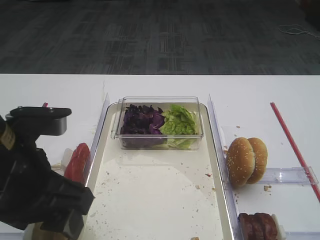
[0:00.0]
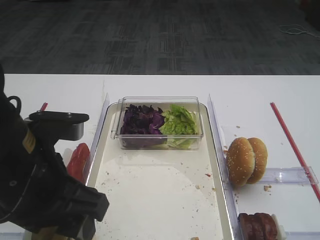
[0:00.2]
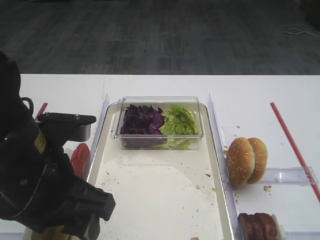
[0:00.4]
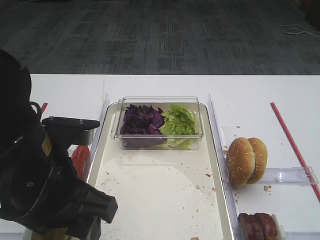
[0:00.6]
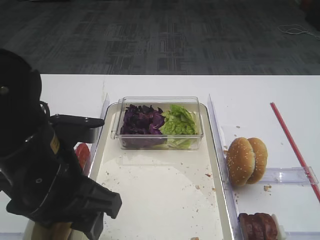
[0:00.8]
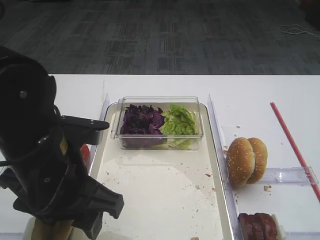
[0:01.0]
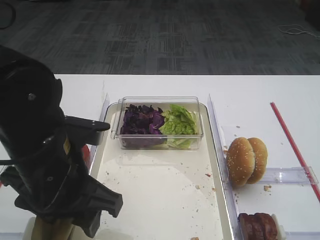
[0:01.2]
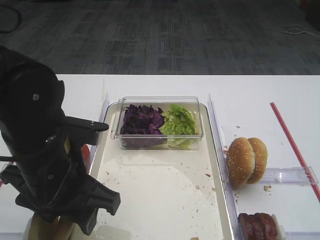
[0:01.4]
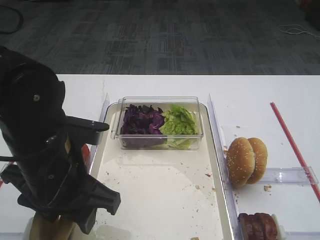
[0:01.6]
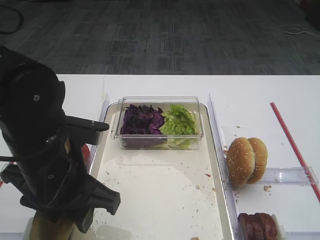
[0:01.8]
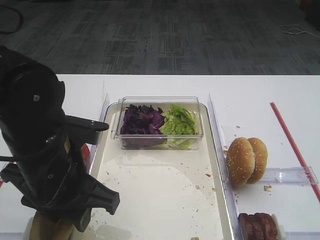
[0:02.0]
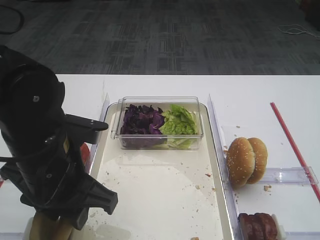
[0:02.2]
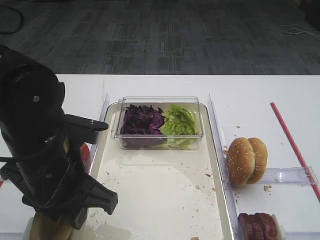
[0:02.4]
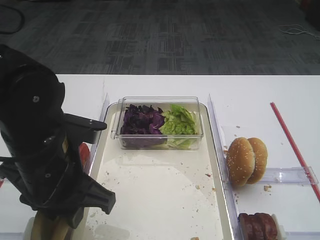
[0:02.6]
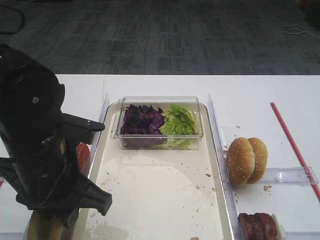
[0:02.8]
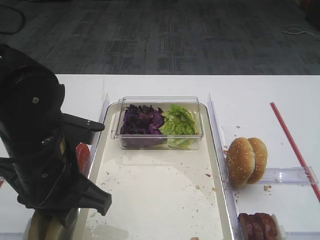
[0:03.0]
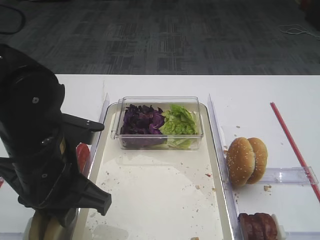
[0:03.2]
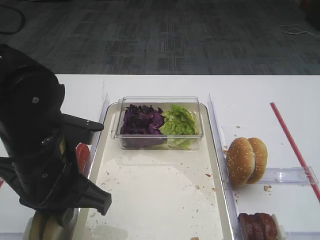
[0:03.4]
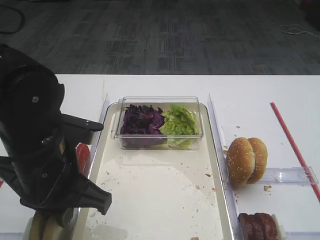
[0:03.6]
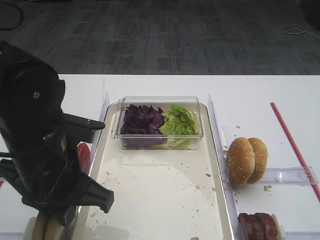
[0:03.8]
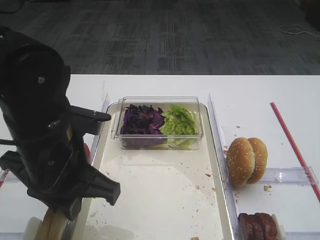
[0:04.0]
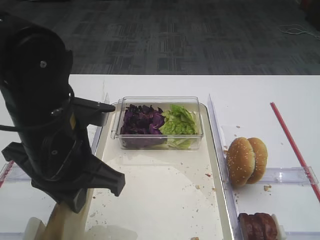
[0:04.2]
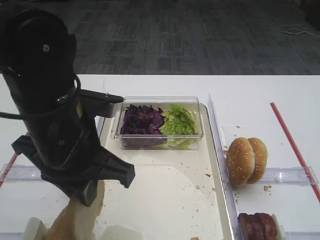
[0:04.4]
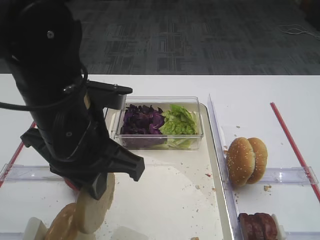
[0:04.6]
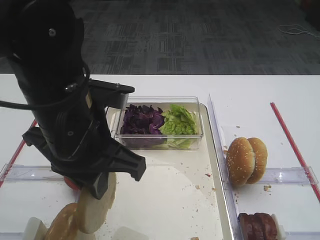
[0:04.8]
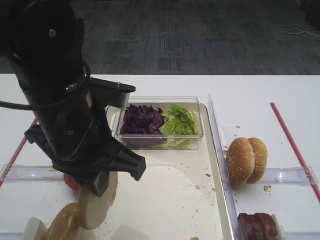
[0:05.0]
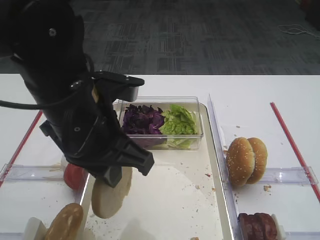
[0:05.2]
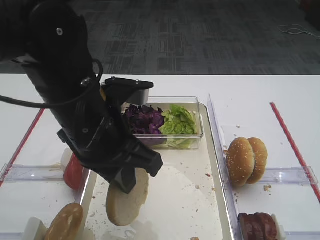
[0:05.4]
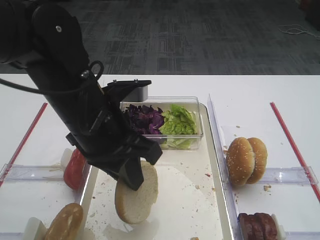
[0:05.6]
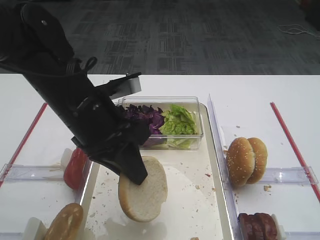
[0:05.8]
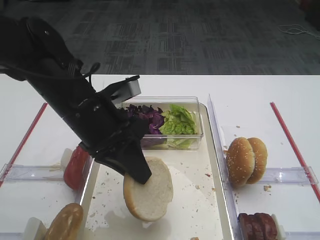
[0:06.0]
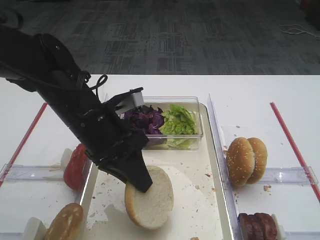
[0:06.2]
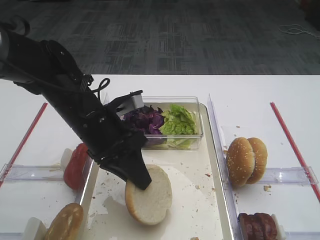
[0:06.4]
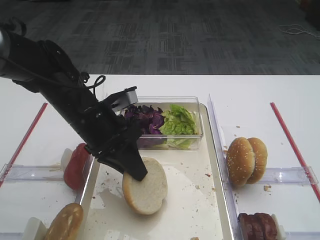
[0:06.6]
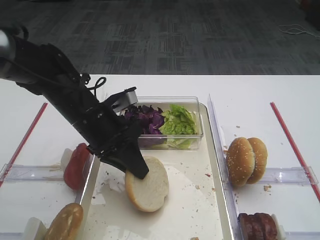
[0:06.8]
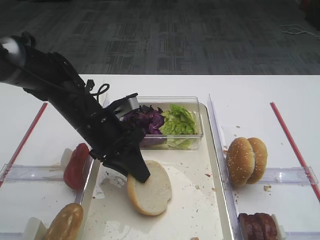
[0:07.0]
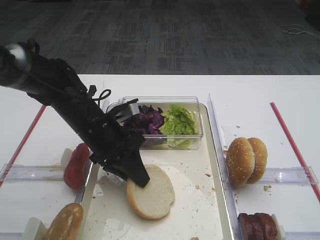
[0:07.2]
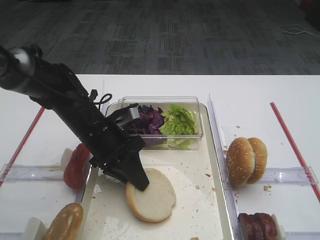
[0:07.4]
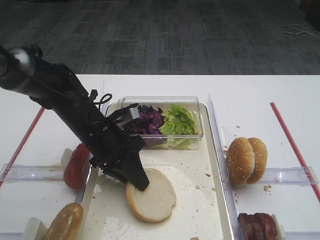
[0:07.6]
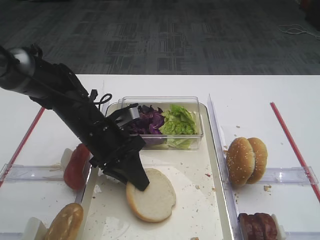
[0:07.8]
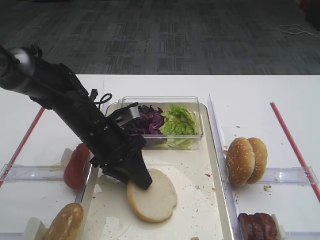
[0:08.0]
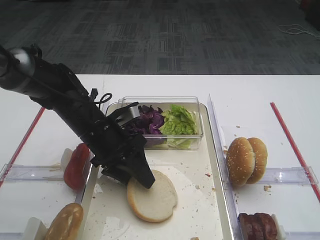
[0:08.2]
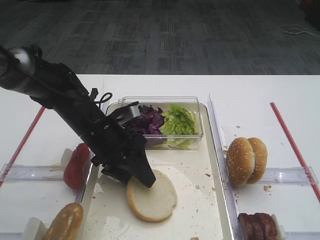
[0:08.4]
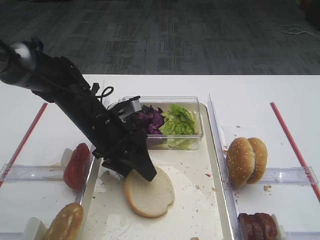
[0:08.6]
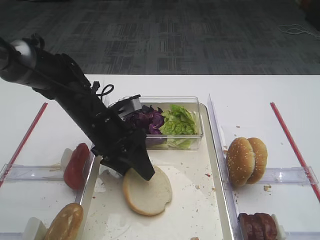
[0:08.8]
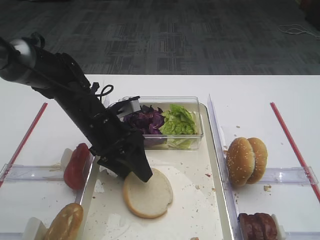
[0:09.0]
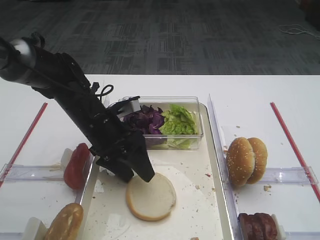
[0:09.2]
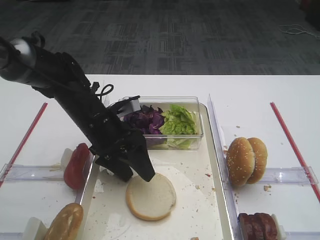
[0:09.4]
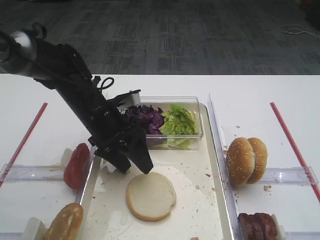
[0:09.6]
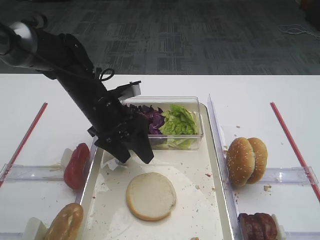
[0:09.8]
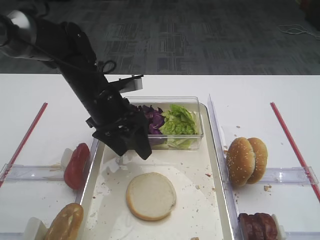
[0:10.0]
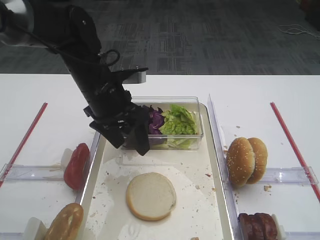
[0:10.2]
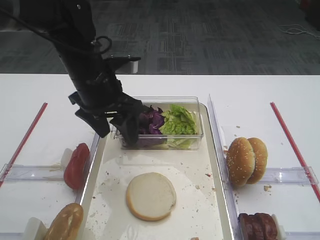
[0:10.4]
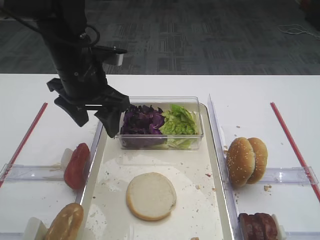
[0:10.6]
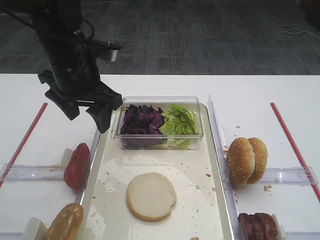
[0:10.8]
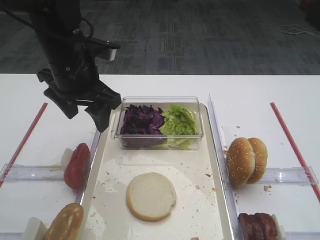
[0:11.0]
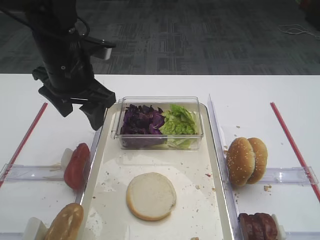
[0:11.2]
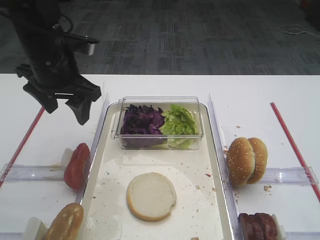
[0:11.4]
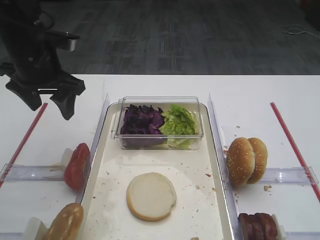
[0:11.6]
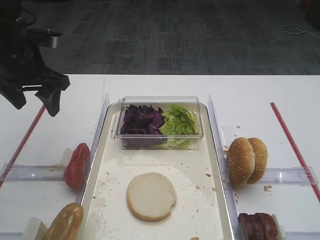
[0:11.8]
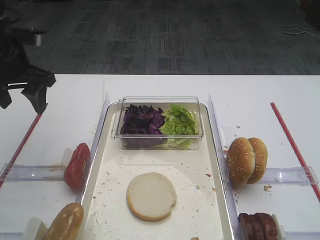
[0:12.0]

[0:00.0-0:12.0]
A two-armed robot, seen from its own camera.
Step, 0:00.0 to 0:04.6: Pick up the bread slice with the left gripper.
Step, 0:04.8 to 0:09.8: Place the bread slice on the tray with the left gripper.
0:00.0 to 0:01.6: The left gripper shifts by approximately 5 cm.
0:01.6 to 0:03.0: The left gripper closes.
0:03.0 to 0:04.4: The grippers stay close to where they were, moving slightly.
0:04.4 to 0:06.0: The left gripper moves forward, about 5 cm.
0:06.0 to 0:07.6: The left gripper heads downward and forward, covering some 10 cm.
0:07.6 to 0:09.0: The left gripper opens up.
0:09.0 to 0:10.4: The left gripper goes roughly 10 cm upward.
0:10.4 to 0:12.0: The left gripper is displaced to the left by some 15 cm.

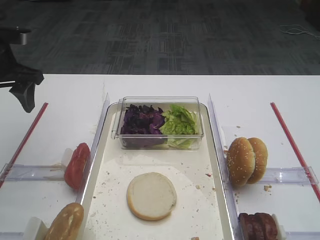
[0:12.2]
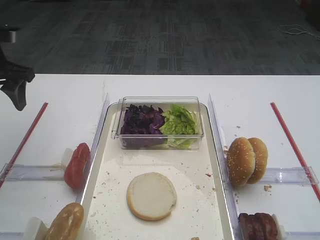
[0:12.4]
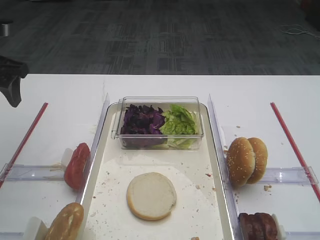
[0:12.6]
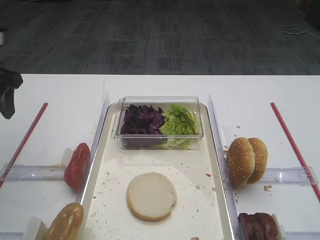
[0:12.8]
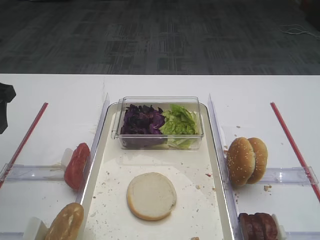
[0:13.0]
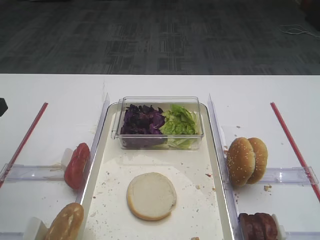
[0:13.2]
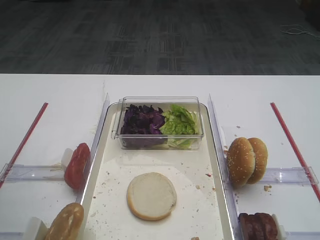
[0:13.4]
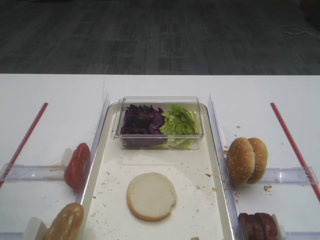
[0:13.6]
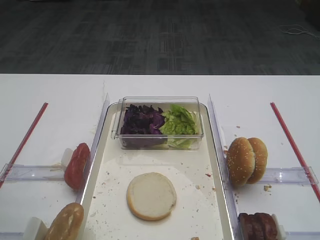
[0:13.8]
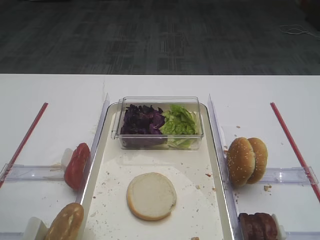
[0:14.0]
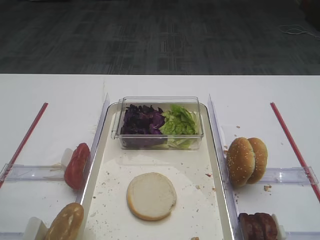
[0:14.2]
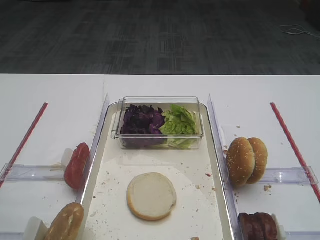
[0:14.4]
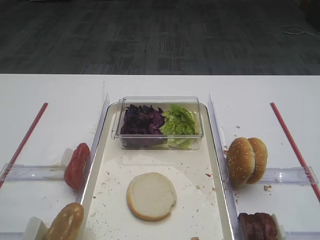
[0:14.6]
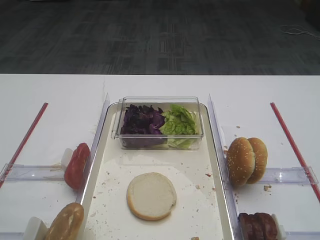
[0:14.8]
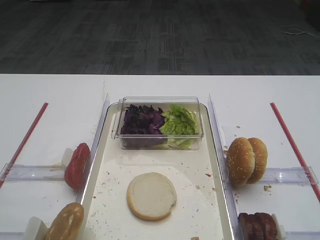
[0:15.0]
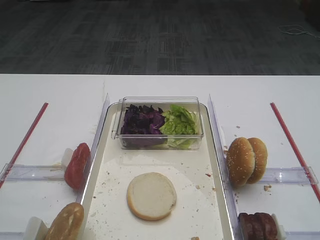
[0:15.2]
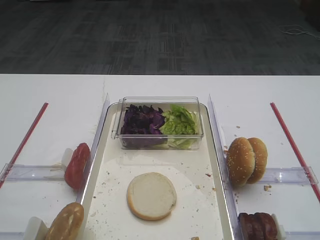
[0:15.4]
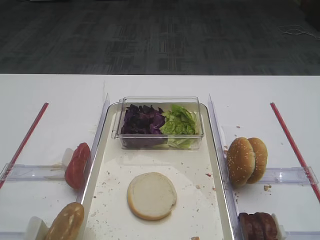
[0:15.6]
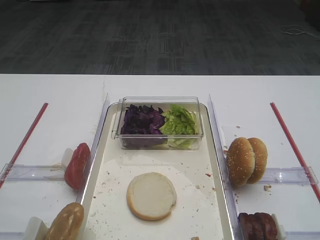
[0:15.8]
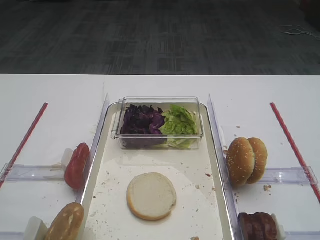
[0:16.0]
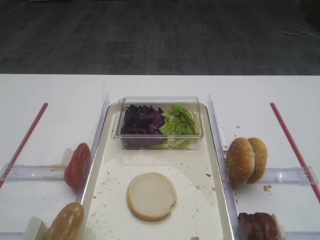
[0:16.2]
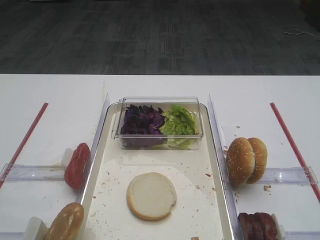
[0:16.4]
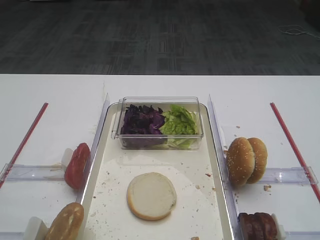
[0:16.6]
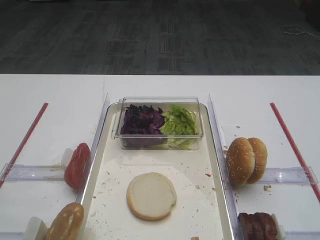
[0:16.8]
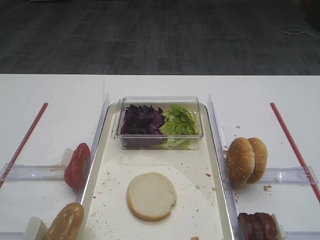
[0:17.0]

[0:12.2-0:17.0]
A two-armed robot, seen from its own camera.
0:12.2 to 0:13.8: The left gripper travels backward by some 20 cm.
0:15.4 to 0:17.0: Both grippers stay put.

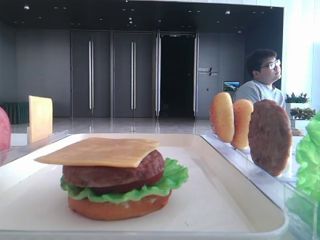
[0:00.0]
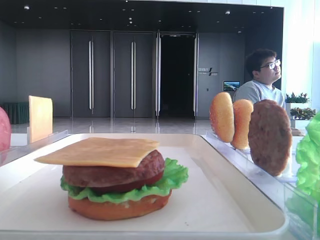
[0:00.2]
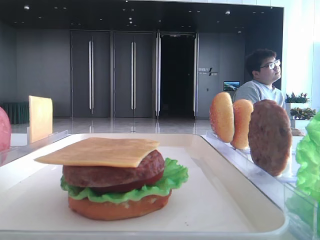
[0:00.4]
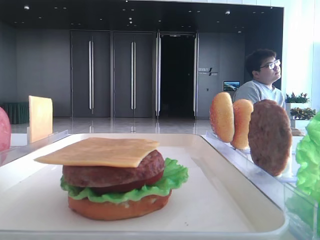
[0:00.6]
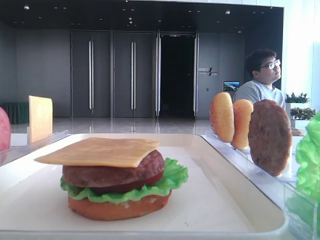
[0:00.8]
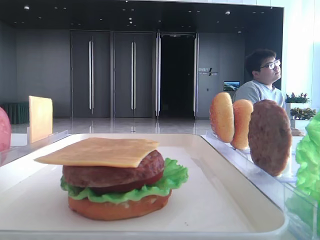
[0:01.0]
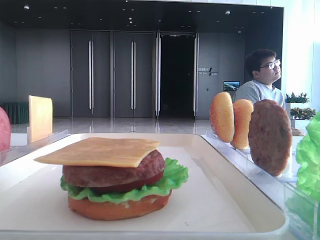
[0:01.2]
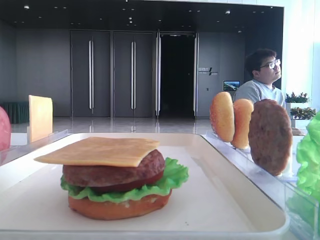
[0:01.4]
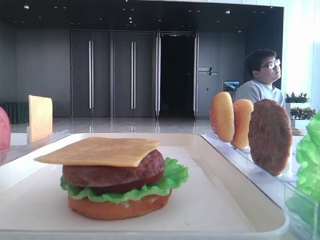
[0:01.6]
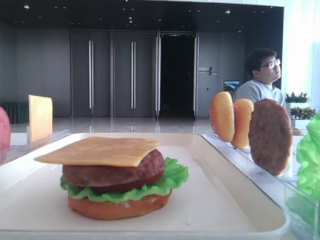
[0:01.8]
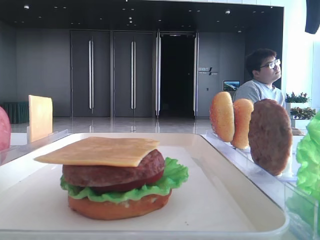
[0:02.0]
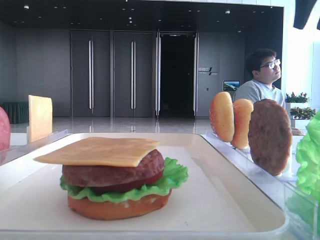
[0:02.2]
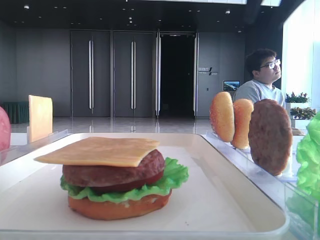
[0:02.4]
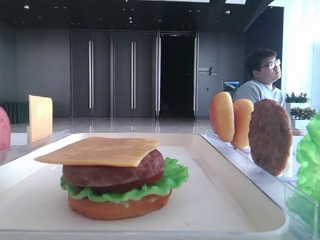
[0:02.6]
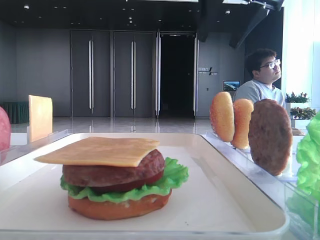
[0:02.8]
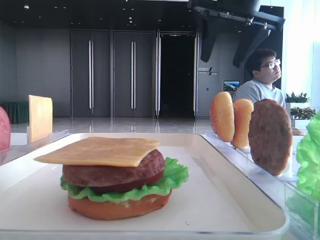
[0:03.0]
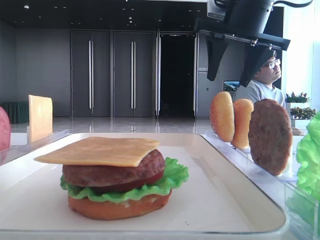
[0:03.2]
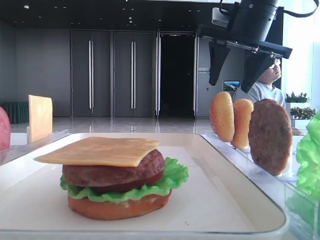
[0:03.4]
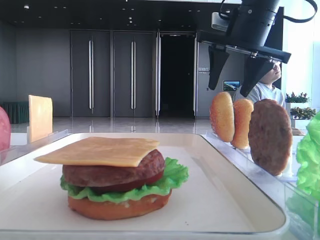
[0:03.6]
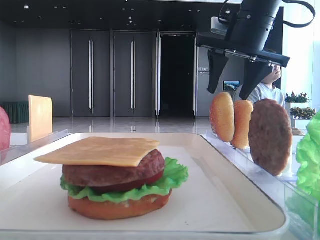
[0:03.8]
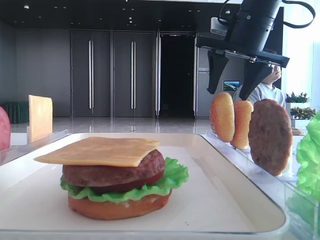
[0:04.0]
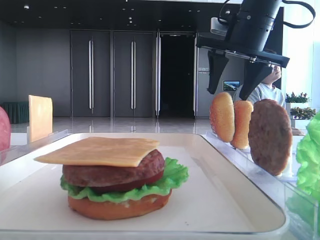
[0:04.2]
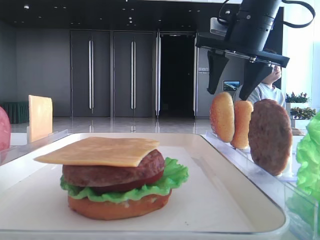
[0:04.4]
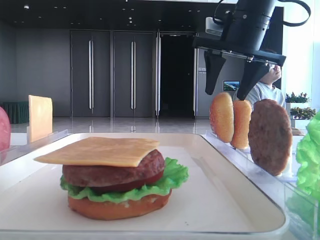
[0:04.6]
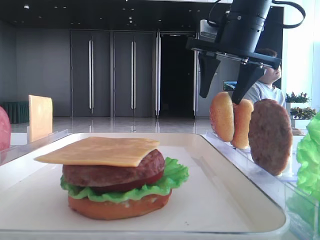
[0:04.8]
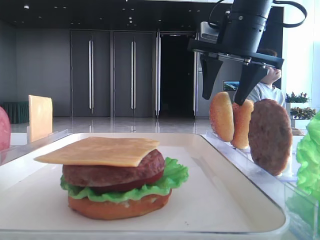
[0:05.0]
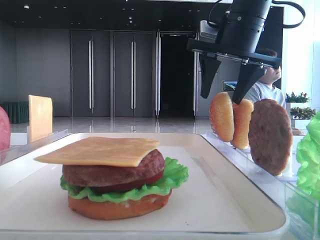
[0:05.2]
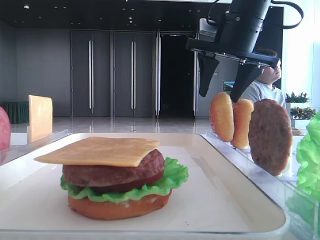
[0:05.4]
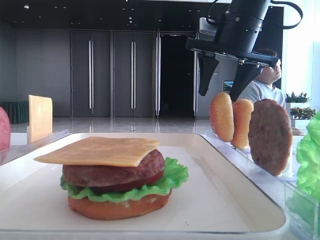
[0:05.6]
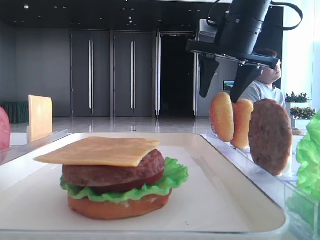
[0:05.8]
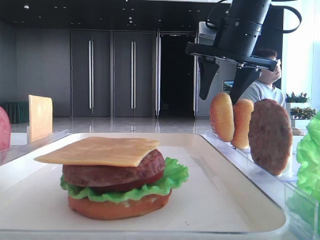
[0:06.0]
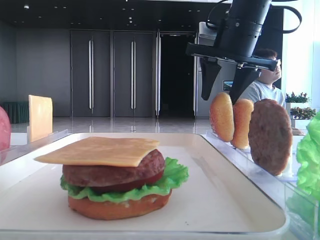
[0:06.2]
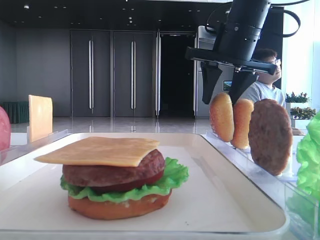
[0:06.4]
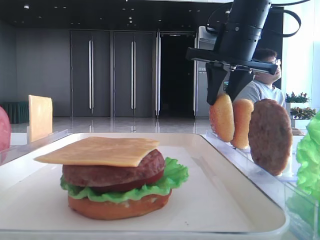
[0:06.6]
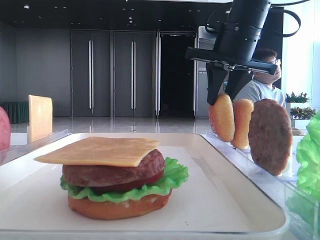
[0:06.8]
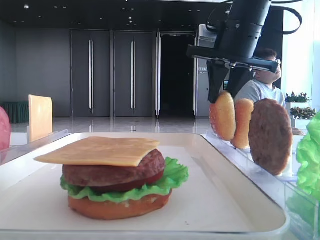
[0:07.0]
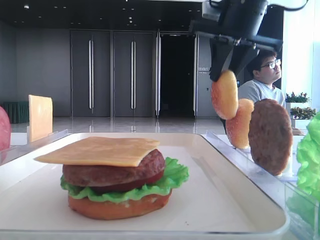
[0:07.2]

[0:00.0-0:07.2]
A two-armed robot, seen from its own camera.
Step, 0:00.0 to 0:06.4: Pick up the top bread slice with the right hand.
0:02.8 to 0:04.4: The right gripper is displaced downward by about 10 cm.
0:04.4 to 0:05.8: The grippers stay close to where they were, moving slightly.
0:05.8 to 0:07.2: The right gripper closes.
